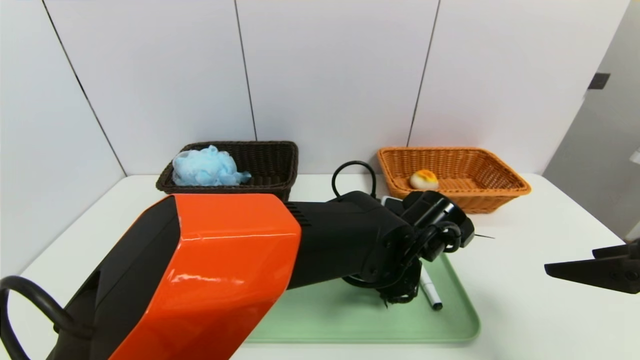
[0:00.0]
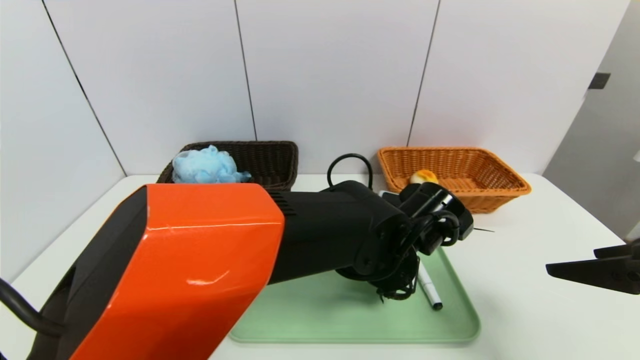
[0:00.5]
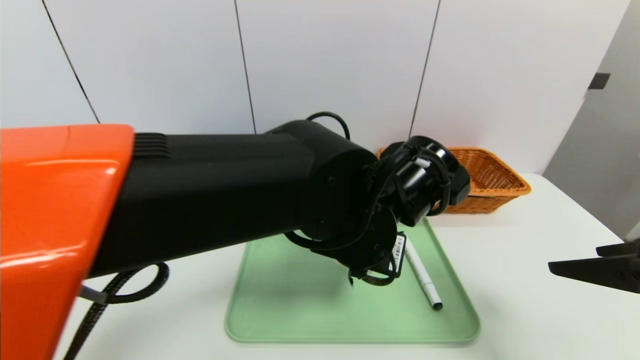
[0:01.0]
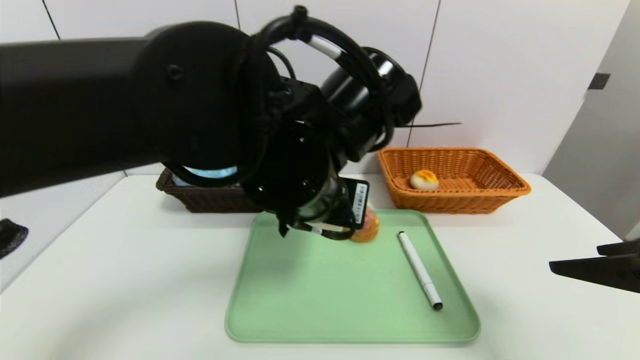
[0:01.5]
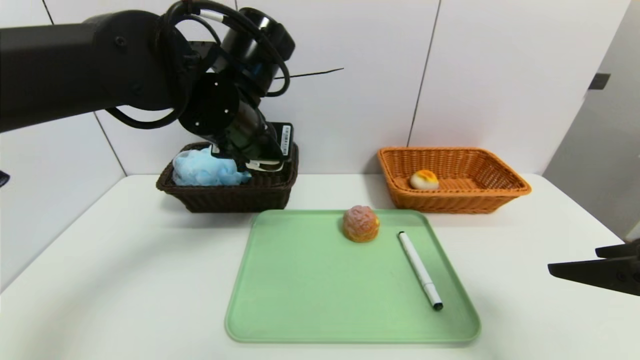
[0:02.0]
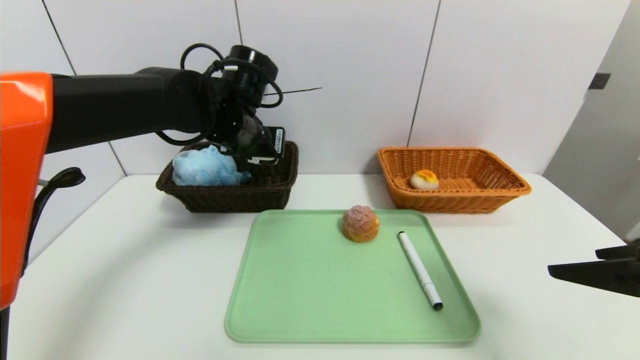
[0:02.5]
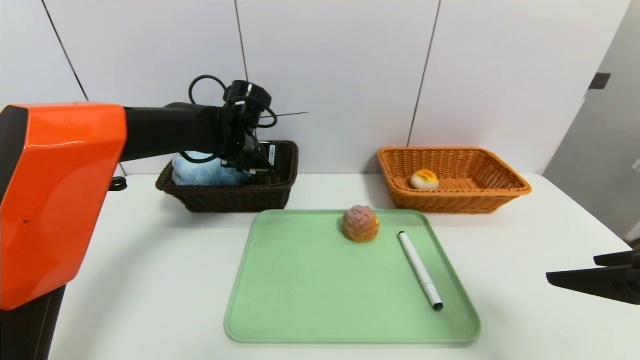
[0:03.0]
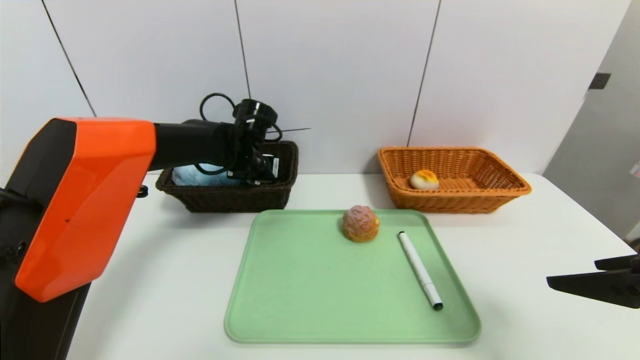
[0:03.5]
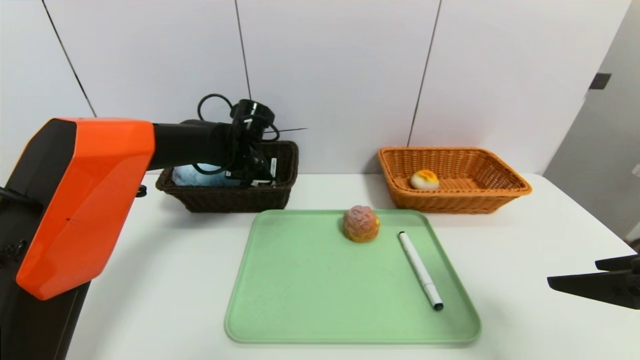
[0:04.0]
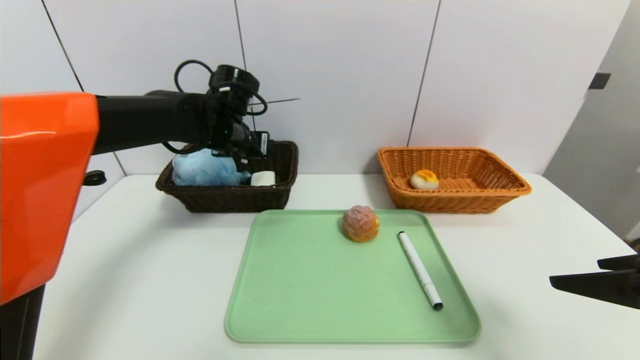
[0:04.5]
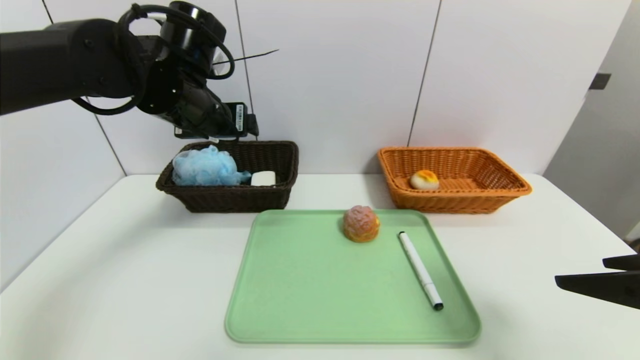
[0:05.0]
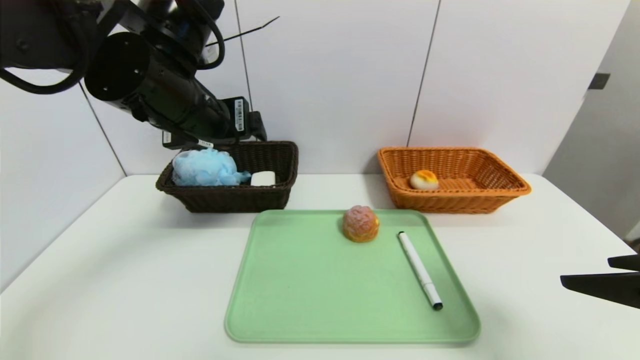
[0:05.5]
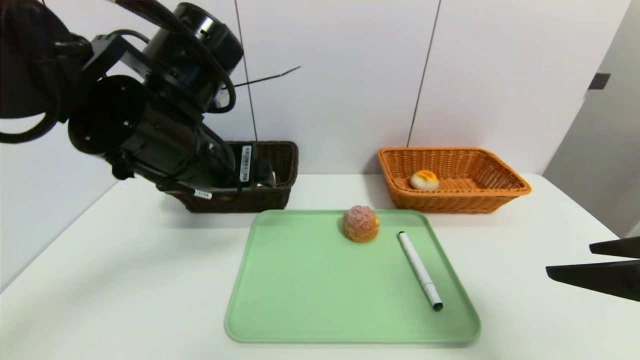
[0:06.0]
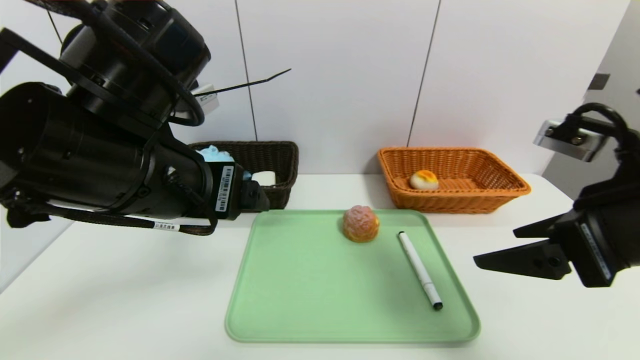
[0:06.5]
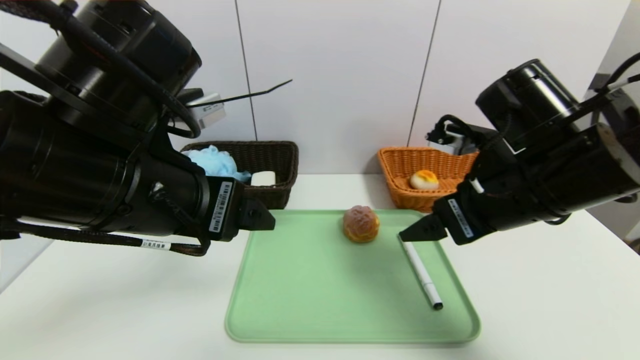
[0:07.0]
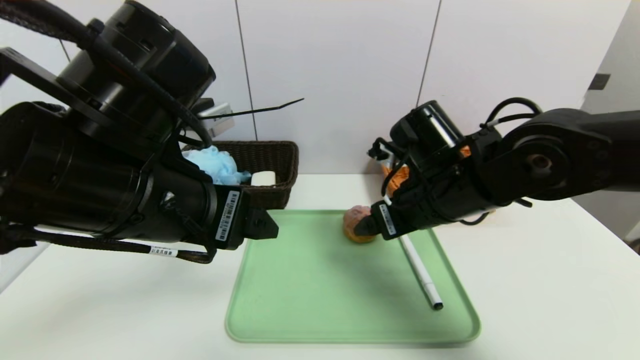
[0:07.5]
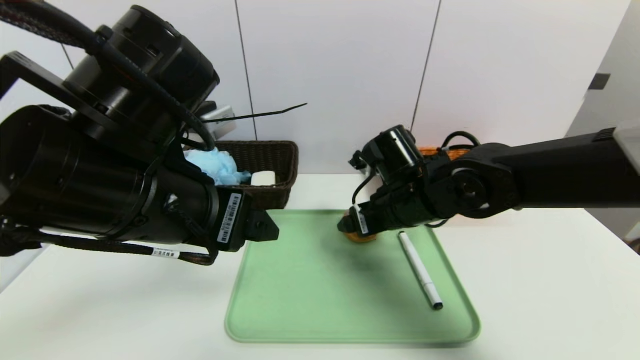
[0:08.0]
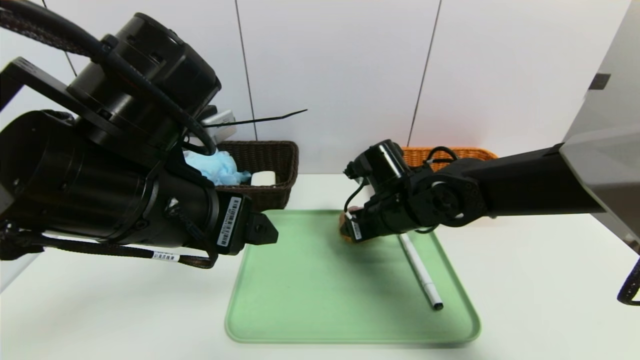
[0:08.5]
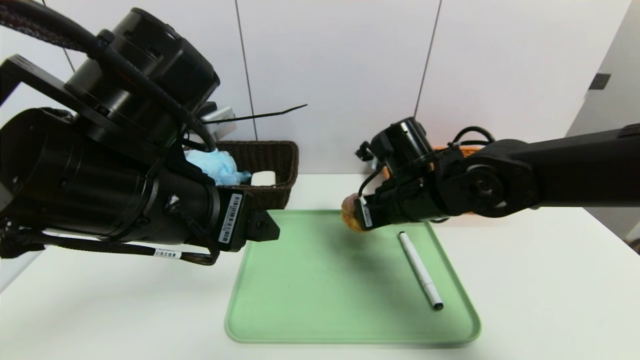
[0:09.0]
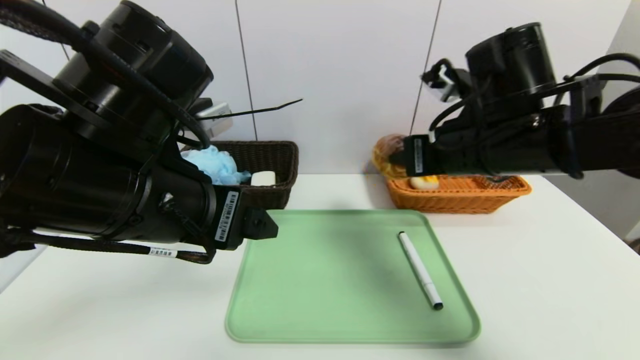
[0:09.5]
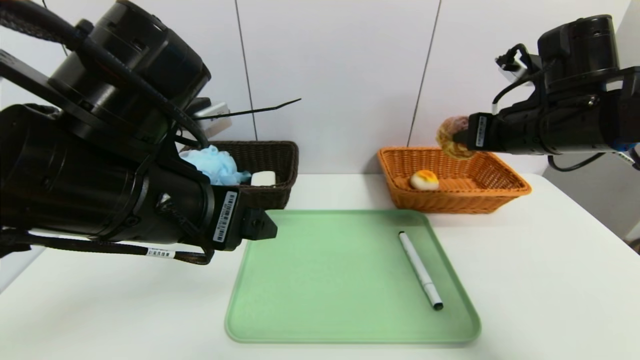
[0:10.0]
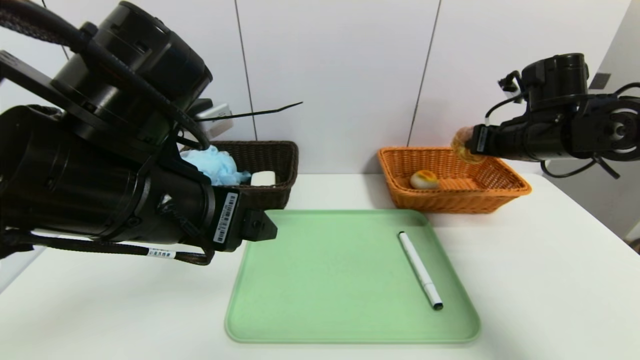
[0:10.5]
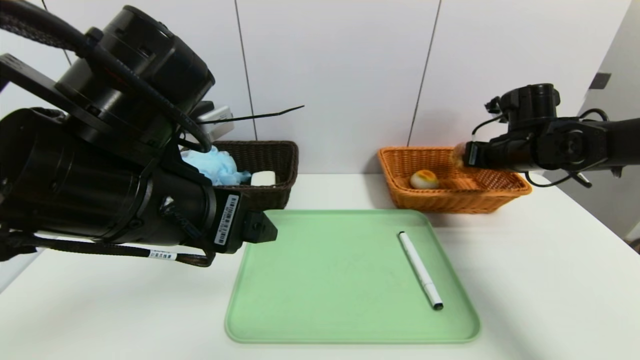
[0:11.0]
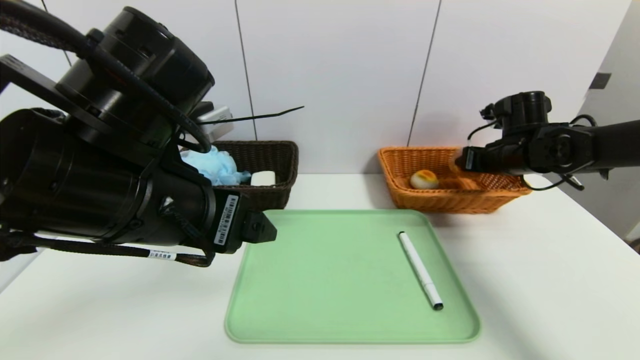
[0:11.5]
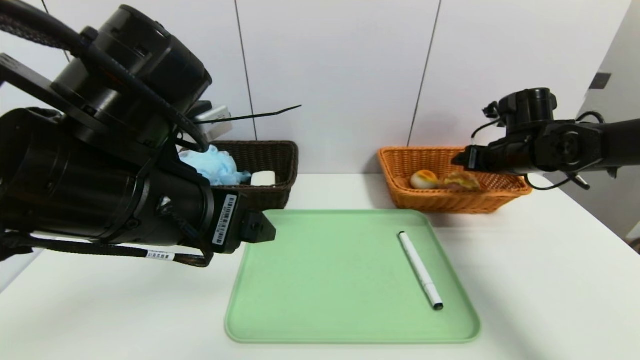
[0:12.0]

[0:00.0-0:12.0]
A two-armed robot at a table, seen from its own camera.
Task of the whole recording: place the food in the right basket with the right gripper, and place the non food items in the left basket with the left gripper.
Step, 0:00.0 to 0:04.5: Grasp the soap and put it in the left basket.
0:00.0 to 0:02.0: The left gripper moves to the left and upward, about 25 cm.
0:02.0 to 0:04.0: The left gripper goes roughly 20 cm forward and downward.
0:04.0 to 0:06.0: The left gripper moves backward and upward, roughly 25 cm.
0:06.0 to 0:08.0: The left gripper is displaced backward by some 5 cm; the right gripper goes about 30 cm forward, to the left and downward.
0:08.0 to 0:10.0: The right gripper moves to the right and upward, approximately 20 cm, and closes up.
0:10.0 to 0:12.0: The right gripper heads forward, downward and to the right, covering roughly 15 cm, and opens its fingers.

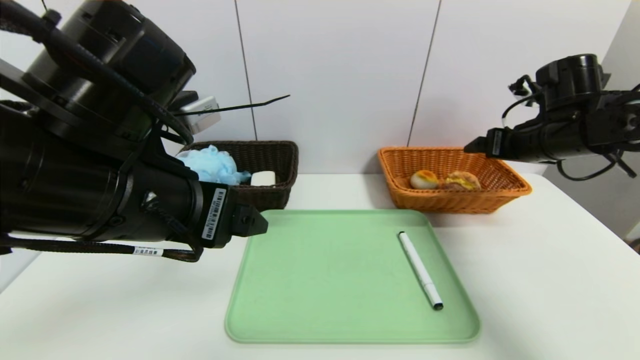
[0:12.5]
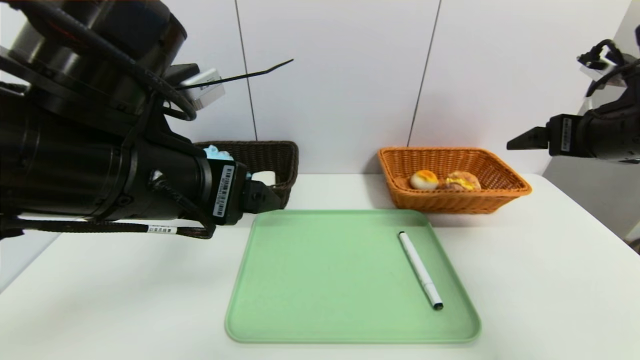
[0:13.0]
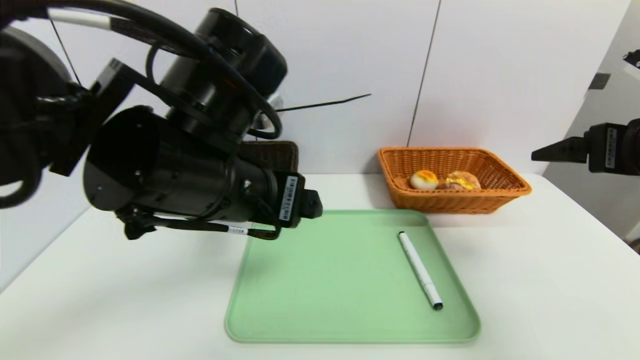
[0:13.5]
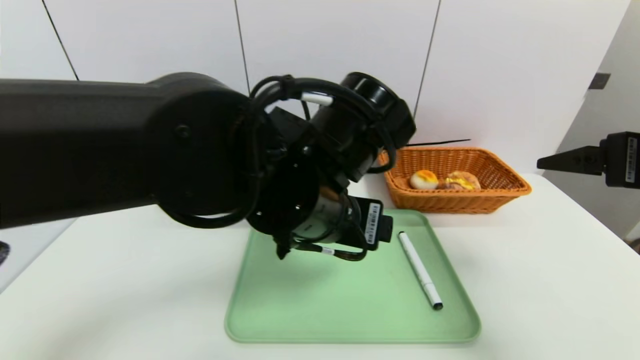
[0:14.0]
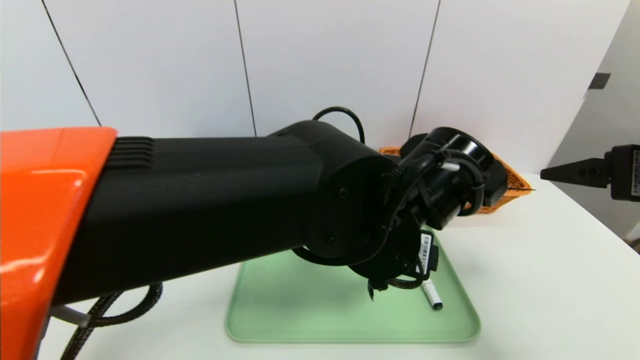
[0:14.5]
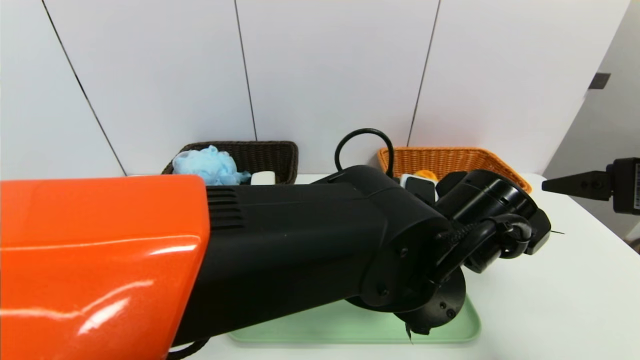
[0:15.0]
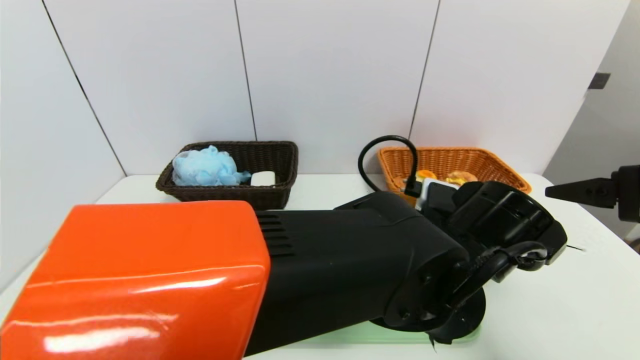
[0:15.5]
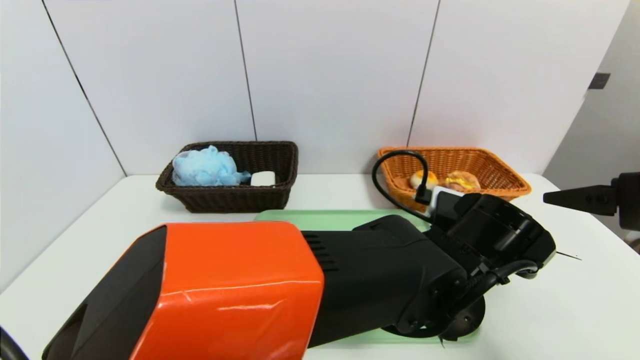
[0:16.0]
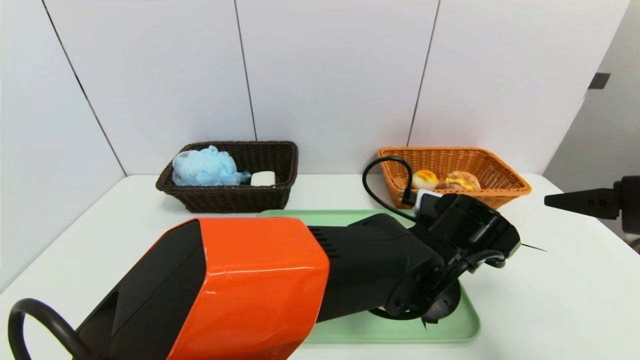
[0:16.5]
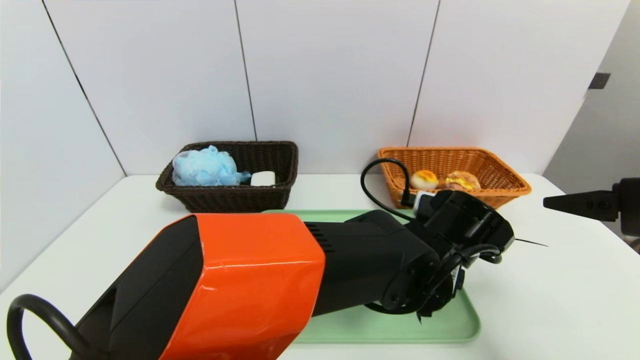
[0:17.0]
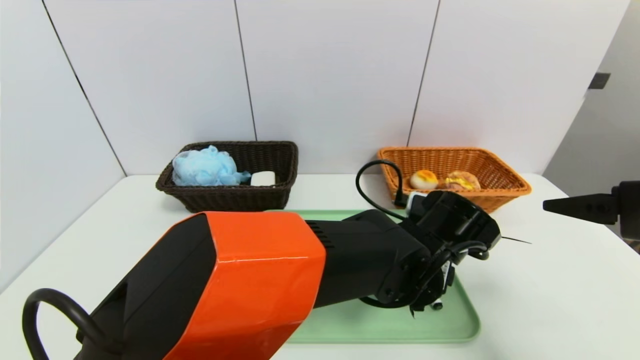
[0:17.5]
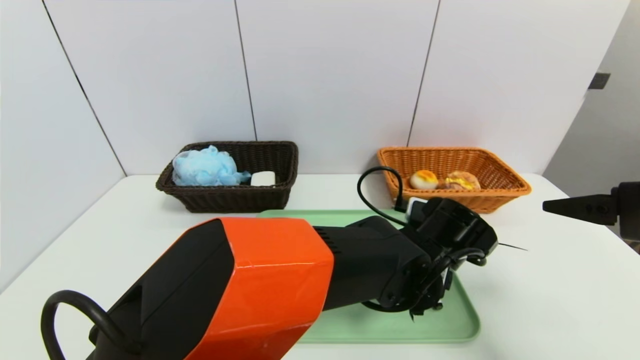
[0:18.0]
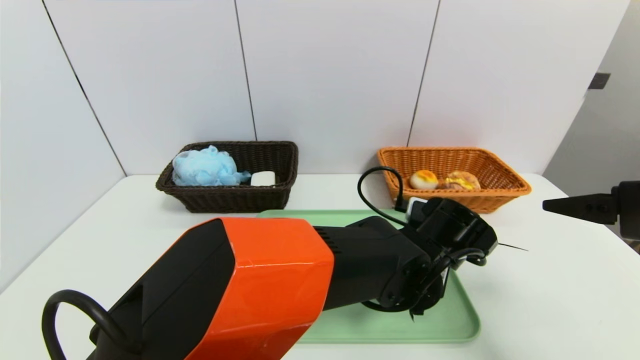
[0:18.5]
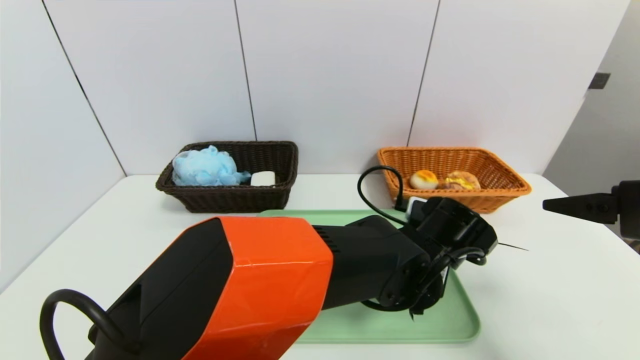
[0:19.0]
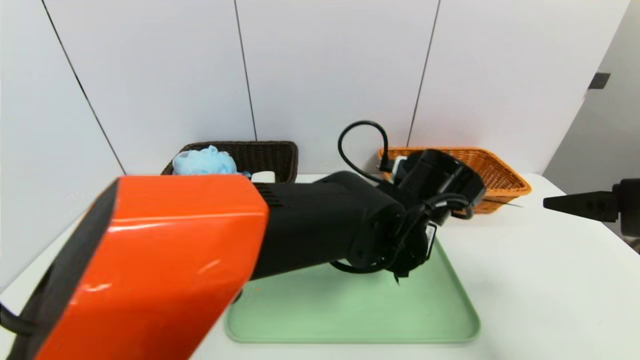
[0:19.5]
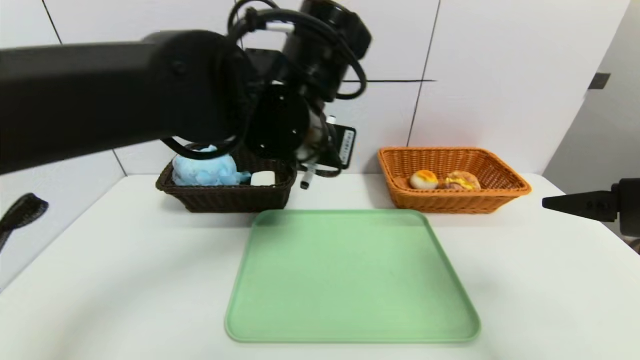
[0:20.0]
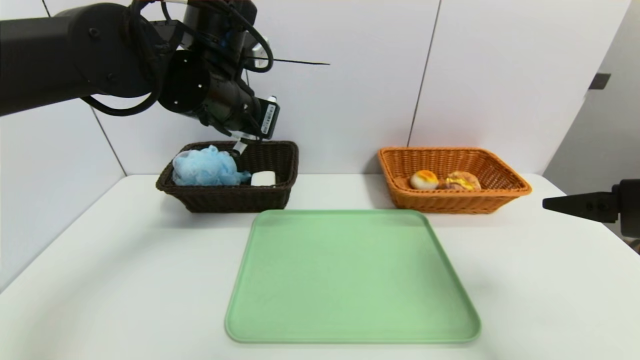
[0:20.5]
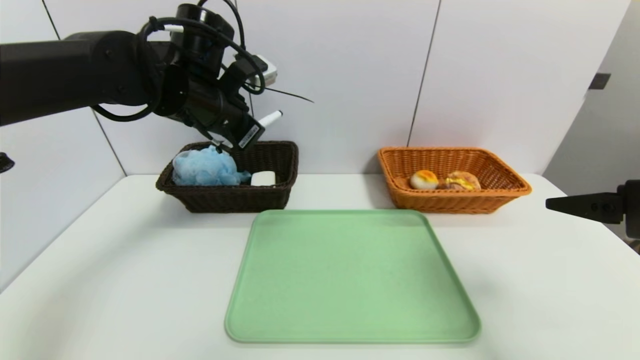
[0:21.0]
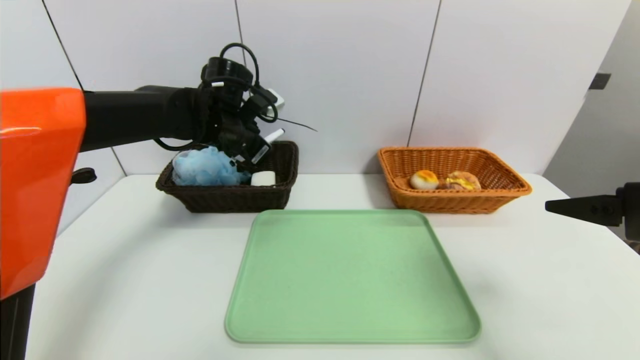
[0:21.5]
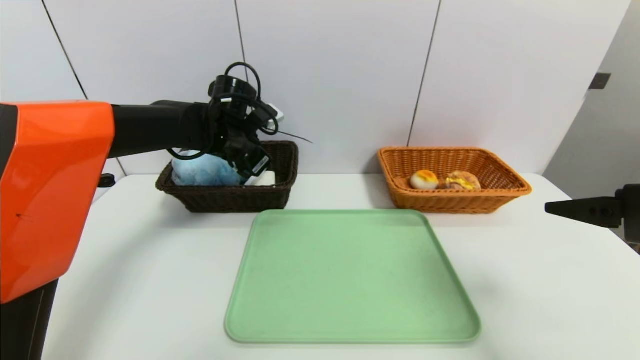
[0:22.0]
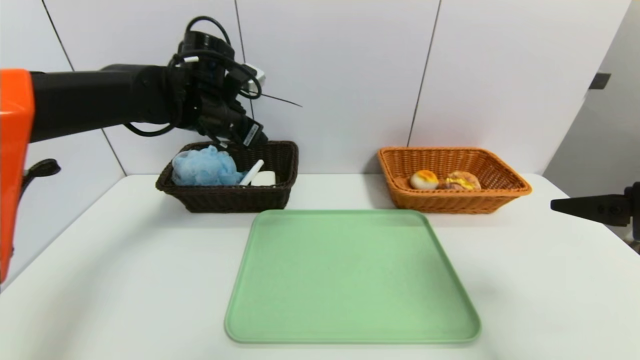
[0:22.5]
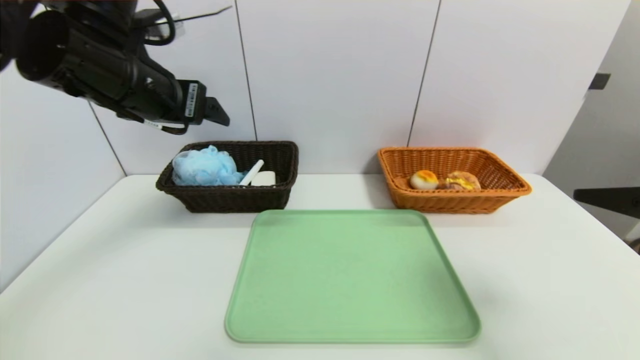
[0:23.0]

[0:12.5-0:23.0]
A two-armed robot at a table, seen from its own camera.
Task of the whole recording: place the food in the right basket with the right gripper, and place the non food items in the left basket with the left gripper.
Step, 0:12.5 to 0:22.0: Grasp the black marker and put it in the left basket.
0:12.5 to 0:14.5: The left gripper goes some 20 cm to the right, while the right gripper heads backward, covering about 20 cm.
0:14.5 to 0:16.5: The left gripper shifts some 10 cm downward and to the right.
0:16.5 to 0:19.0: The left gripper closes up.
0:19.0 to 0:21.0: The left gripper travels to the left, upward and forward by roughly 35 cm.
0:21.0 to 0:23.0: The left gripper is displaced backward and to the left by roughly 10 cm, and opens.
